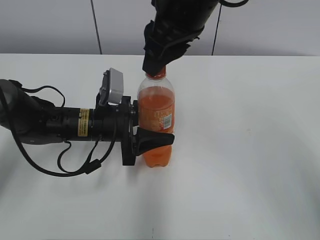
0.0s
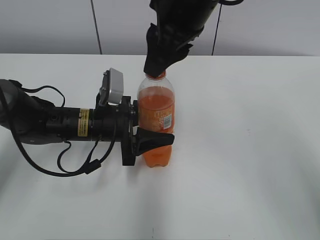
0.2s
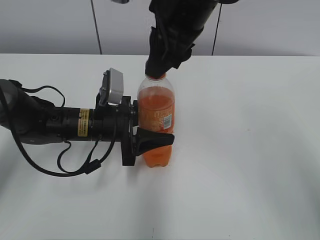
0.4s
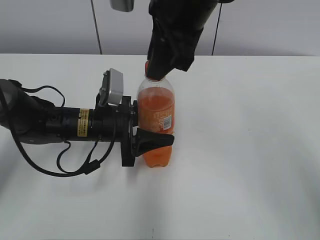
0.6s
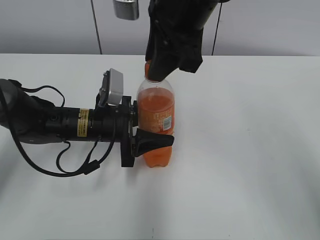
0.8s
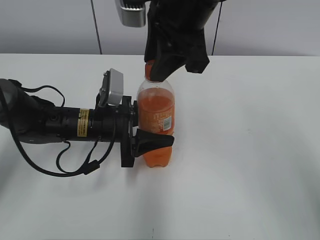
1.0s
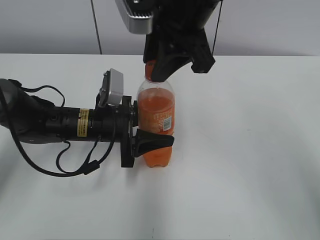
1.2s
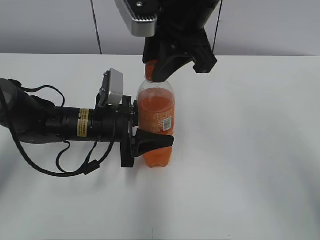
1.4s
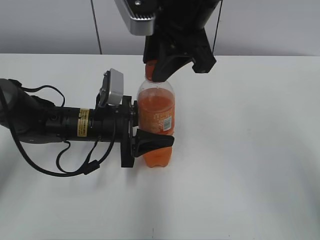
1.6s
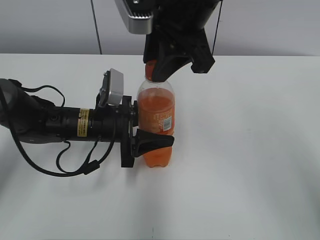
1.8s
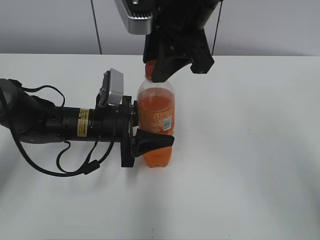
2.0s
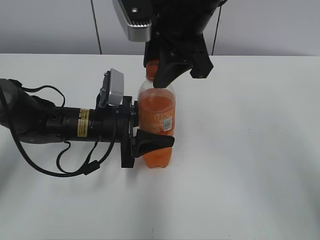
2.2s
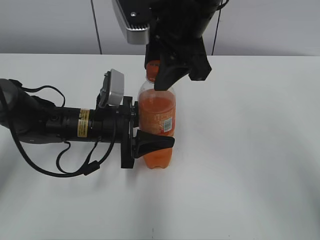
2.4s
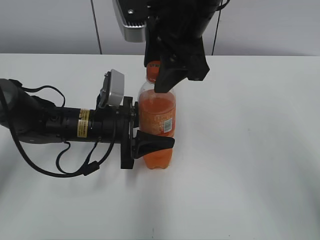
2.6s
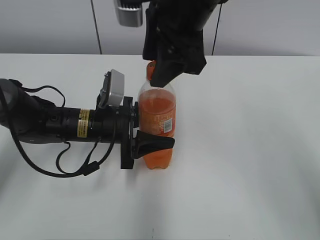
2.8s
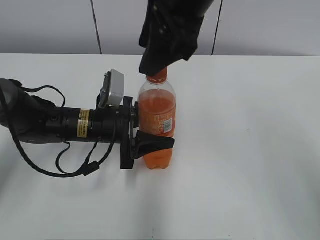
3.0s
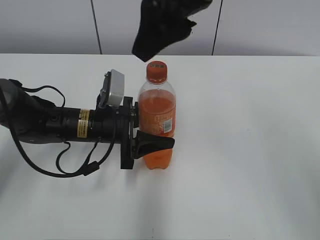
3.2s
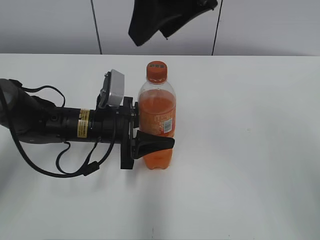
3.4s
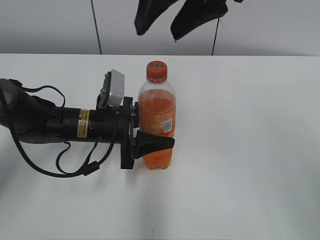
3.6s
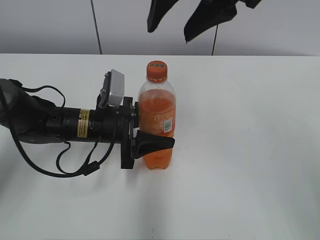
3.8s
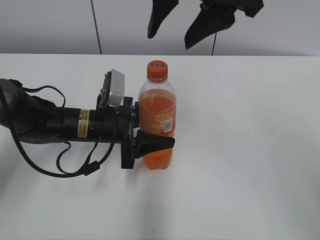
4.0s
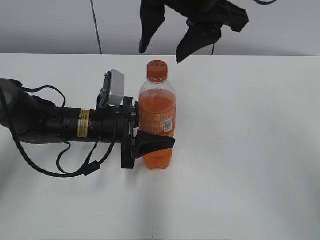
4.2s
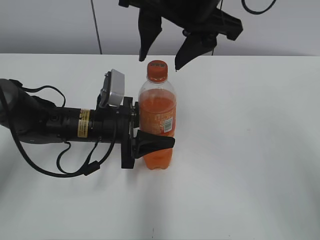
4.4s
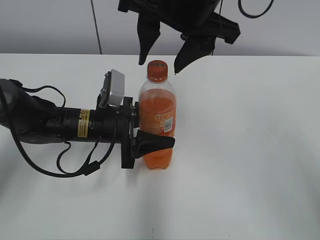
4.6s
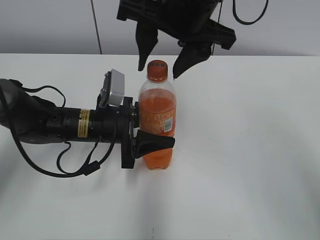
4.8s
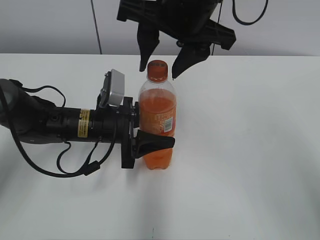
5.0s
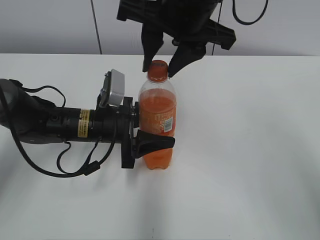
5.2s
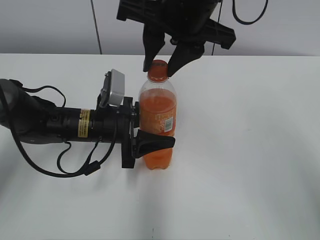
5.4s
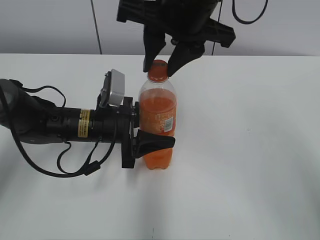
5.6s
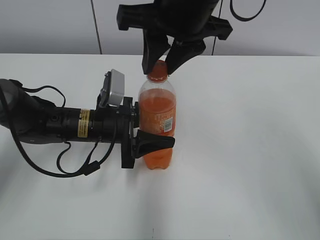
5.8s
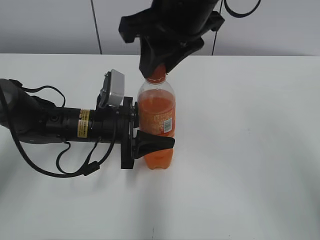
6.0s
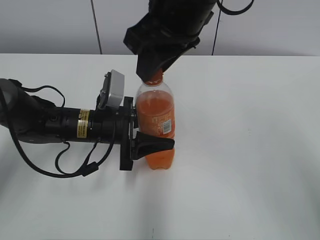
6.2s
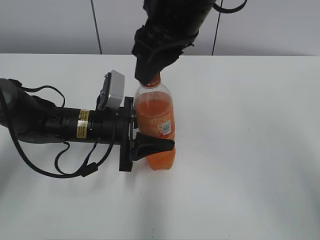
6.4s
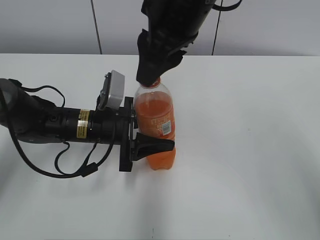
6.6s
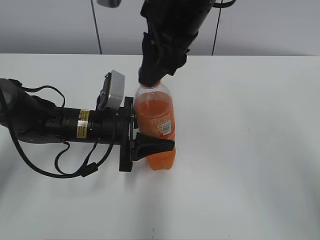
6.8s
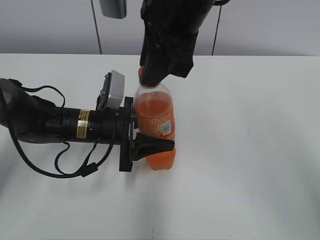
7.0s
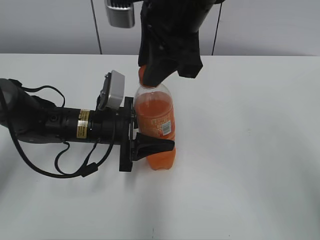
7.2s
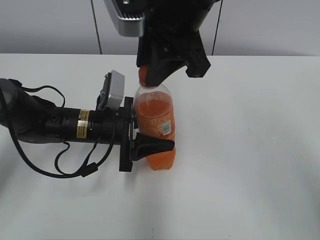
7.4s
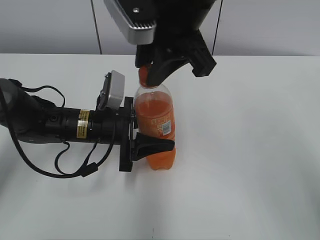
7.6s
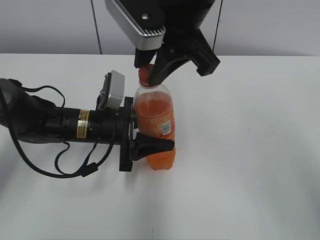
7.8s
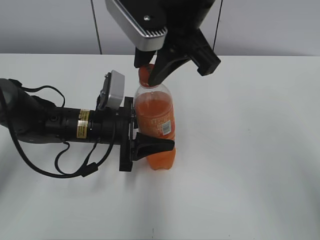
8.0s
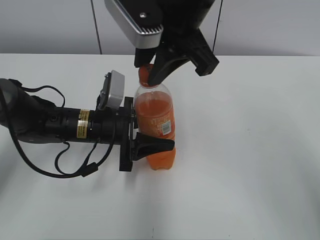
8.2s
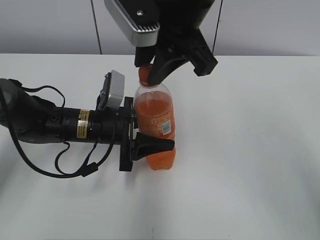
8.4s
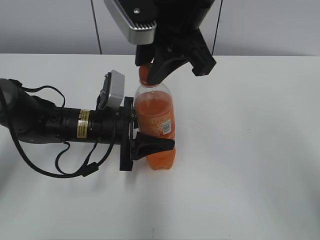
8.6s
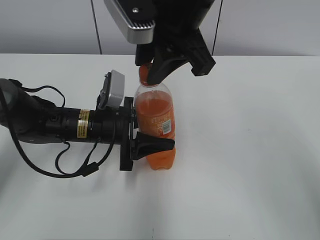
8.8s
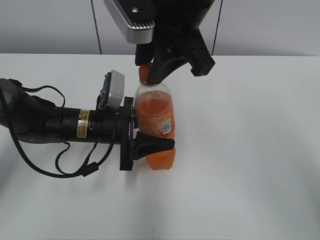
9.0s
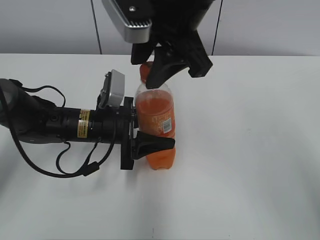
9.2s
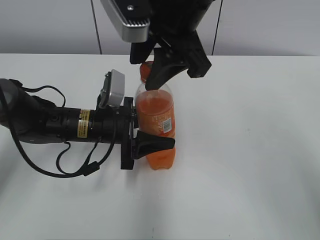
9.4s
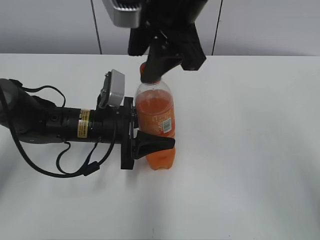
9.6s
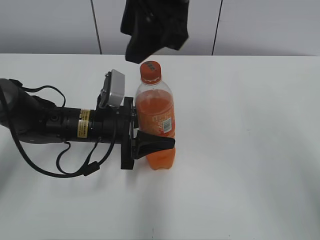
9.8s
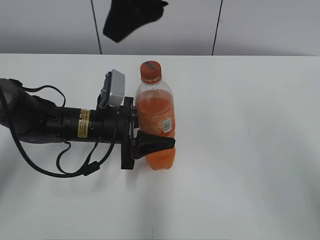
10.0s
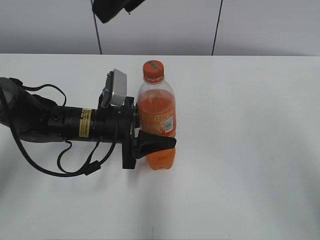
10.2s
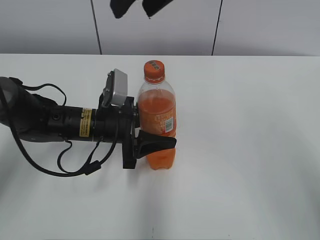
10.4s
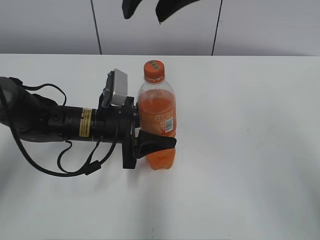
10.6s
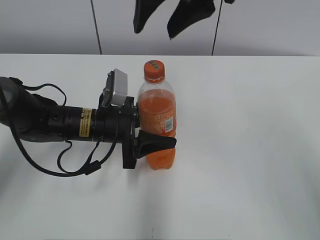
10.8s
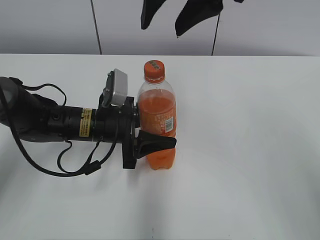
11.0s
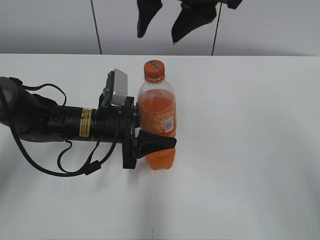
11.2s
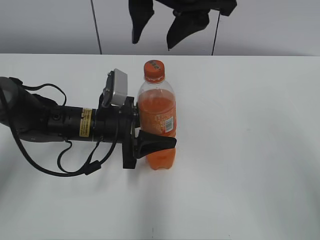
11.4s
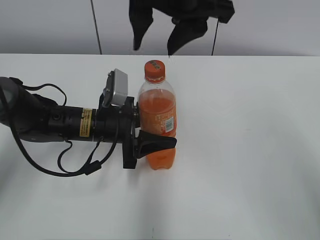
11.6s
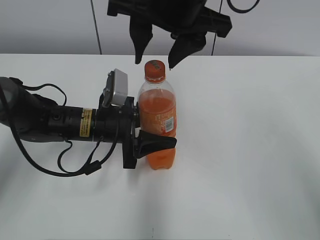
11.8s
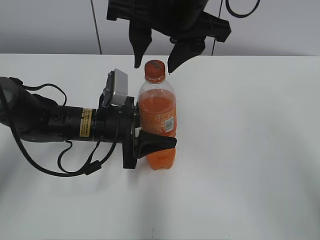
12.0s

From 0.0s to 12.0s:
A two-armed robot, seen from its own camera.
From 1.6s to 3.0s: The right gripper opens its fingers.
From 4.4s to 6.0s: The right gripper closes up.
From 7.6s to 9.0s: There are only small adjustments of the grippers.
From 9.0s to 10.4s: The right gripper heads upward, covering some 5 cm, and opens its fingers.
From 10.4s to 12.0s: The right gripper moves downward, roughly 5 cm.

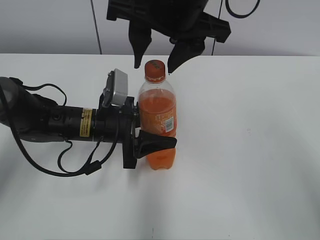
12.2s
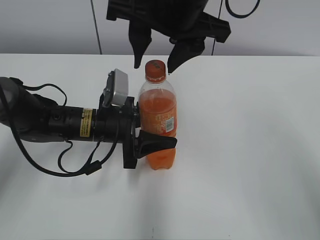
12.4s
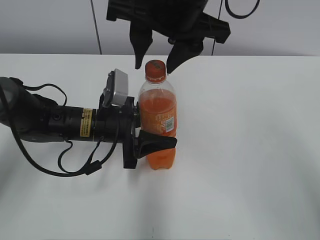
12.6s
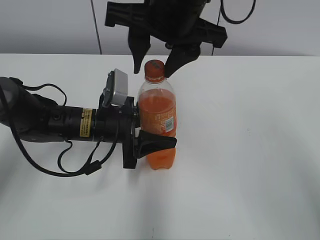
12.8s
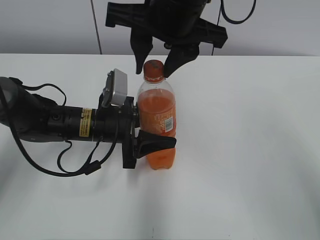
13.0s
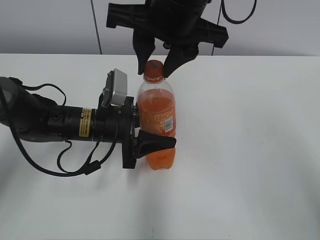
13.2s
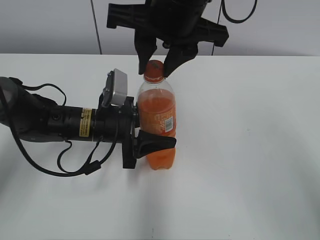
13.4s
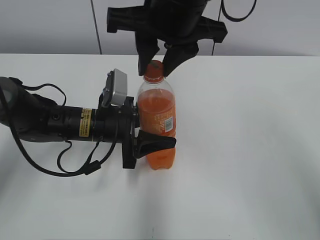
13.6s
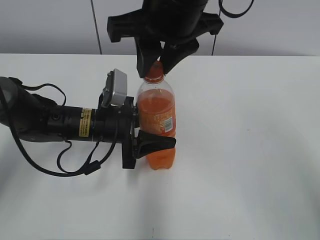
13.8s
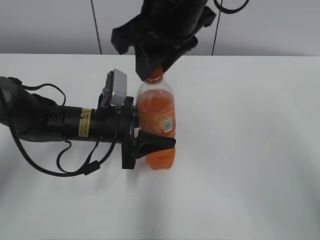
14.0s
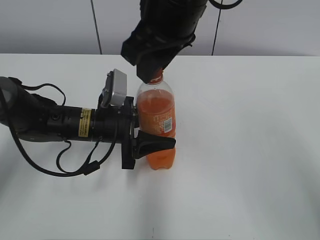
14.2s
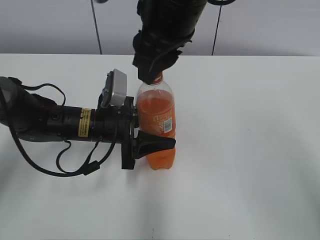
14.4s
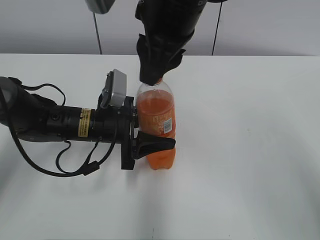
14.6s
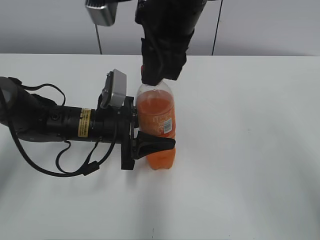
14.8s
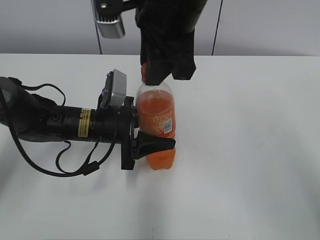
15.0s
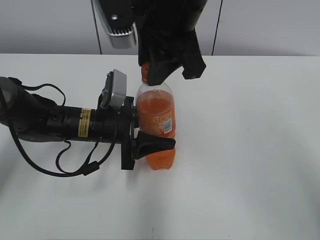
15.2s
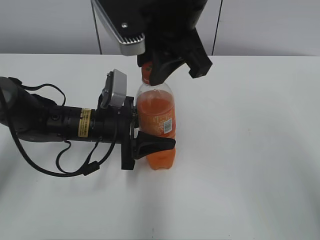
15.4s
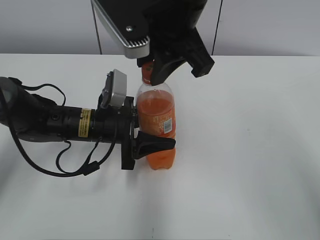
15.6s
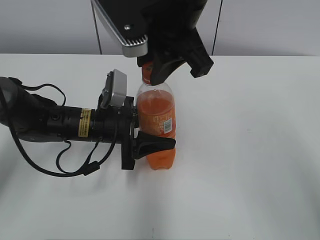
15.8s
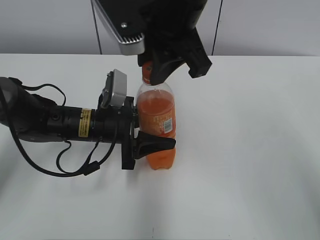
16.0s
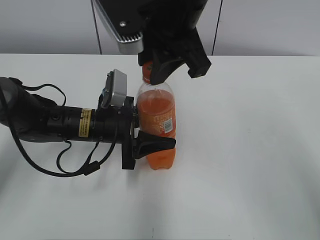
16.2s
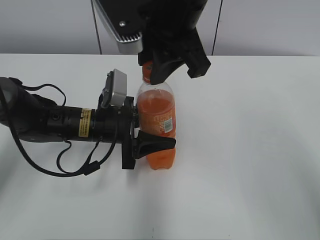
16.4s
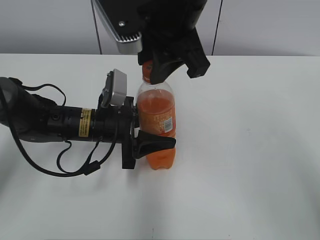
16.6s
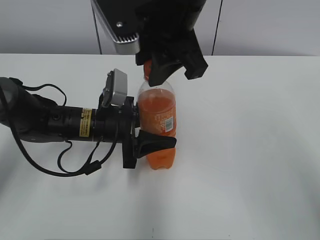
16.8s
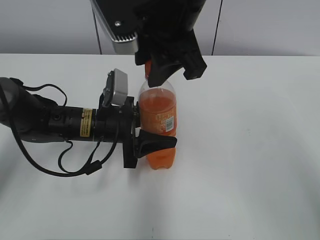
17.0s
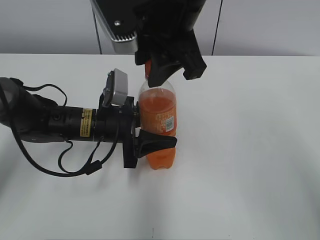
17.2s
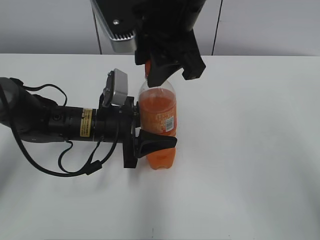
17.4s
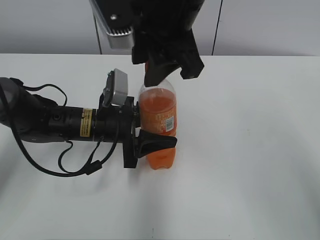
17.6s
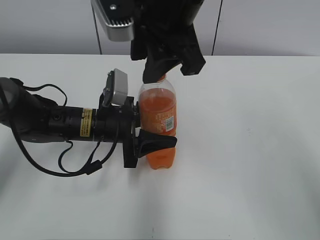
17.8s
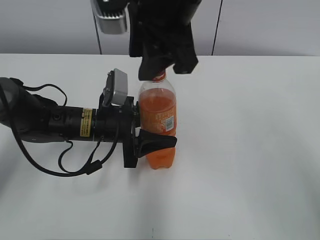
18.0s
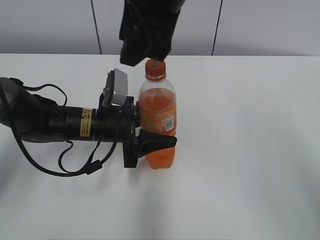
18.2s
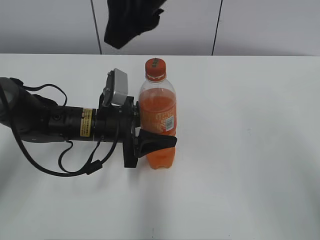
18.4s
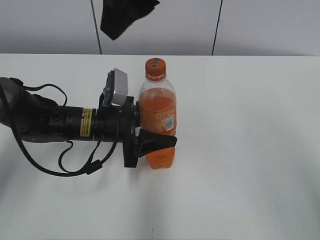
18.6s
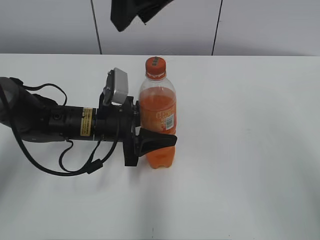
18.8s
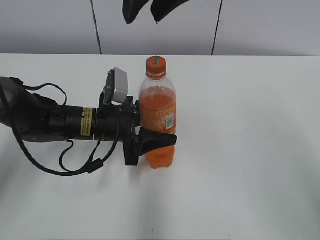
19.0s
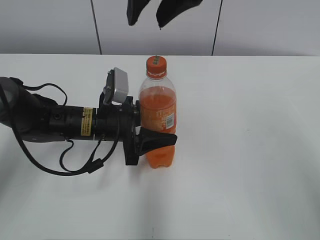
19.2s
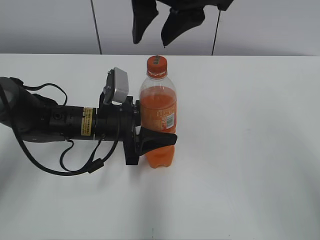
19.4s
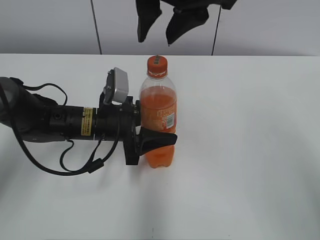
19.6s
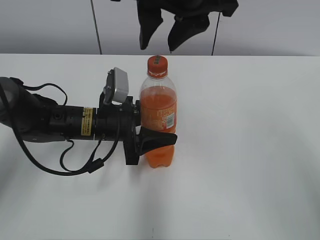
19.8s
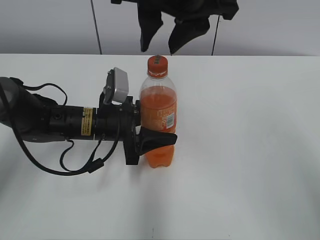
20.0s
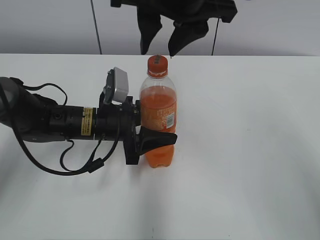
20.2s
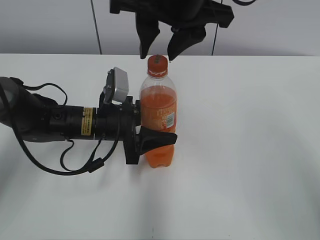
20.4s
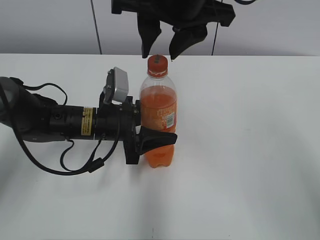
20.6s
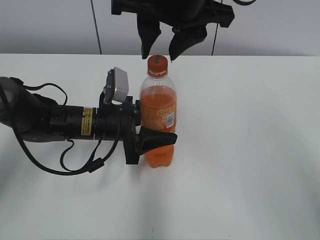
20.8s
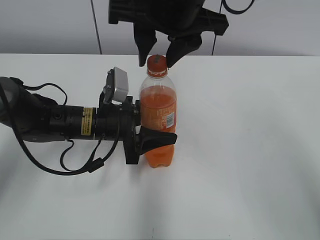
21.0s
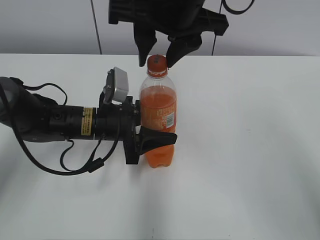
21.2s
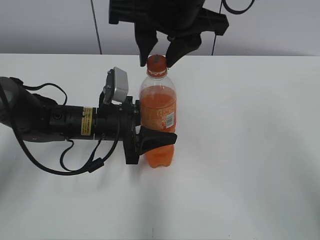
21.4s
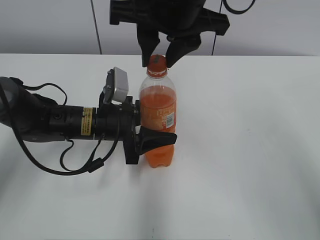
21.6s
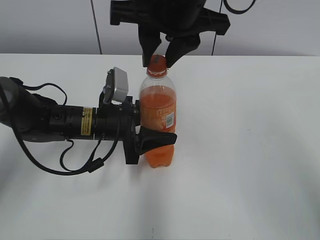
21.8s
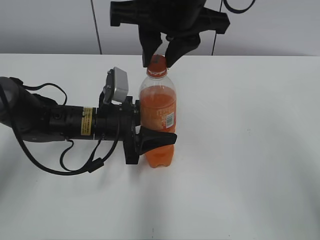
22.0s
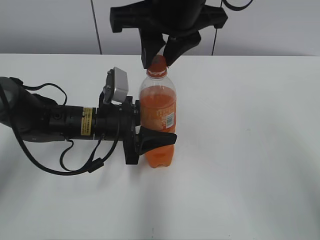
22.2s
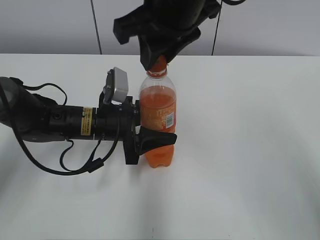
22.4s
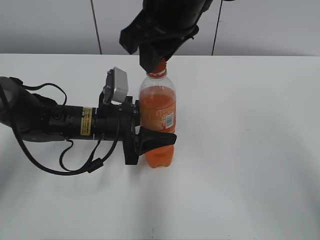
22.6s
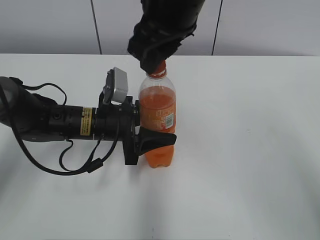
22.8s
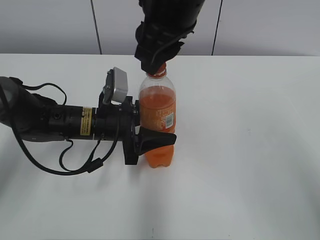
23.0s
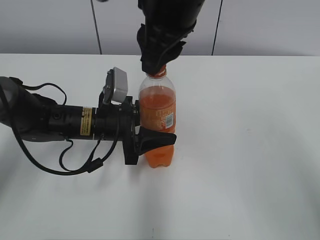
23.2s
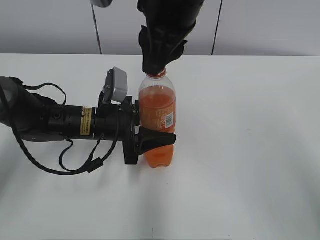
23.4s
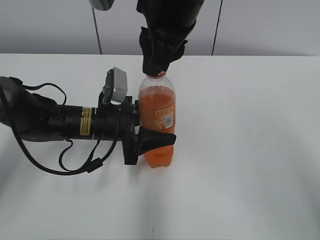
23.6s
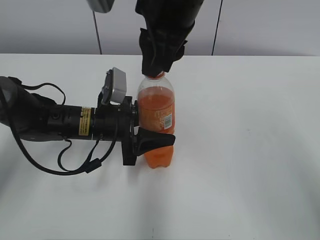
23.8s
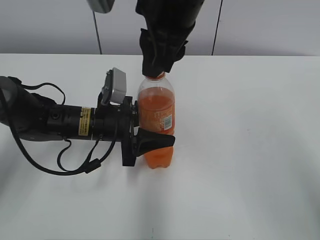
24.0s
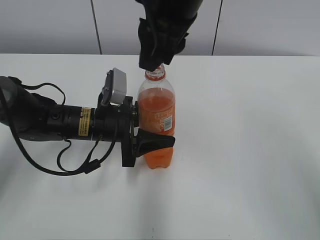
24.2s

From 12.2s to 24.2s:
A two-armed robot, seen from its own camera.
From 12.2s to 13.8s: The right gripper closes.
From 15.2s to 16.6s: The grippers make only small movements.
From 19.8s to 21.2s: The grippers make only small movements.
From 21.2s to 22.6s: The right gripper closes its fingers.
